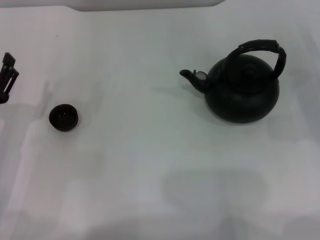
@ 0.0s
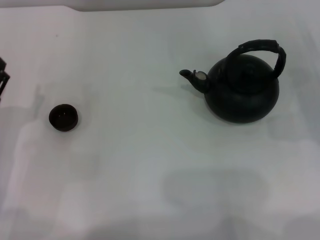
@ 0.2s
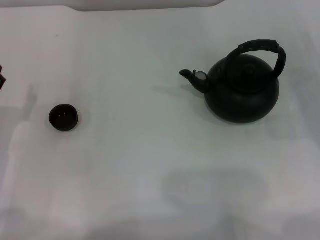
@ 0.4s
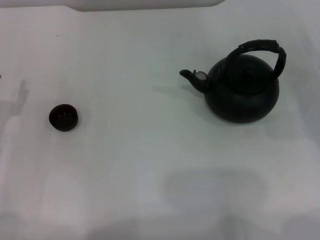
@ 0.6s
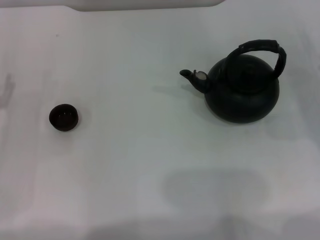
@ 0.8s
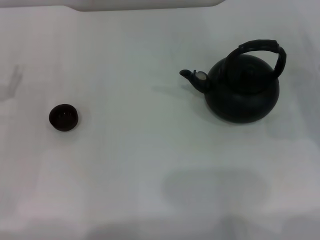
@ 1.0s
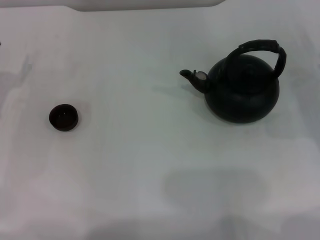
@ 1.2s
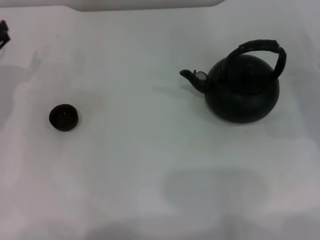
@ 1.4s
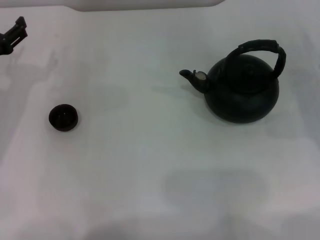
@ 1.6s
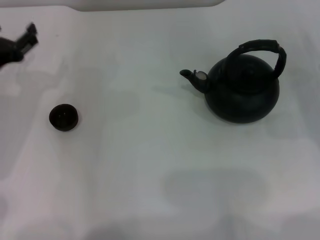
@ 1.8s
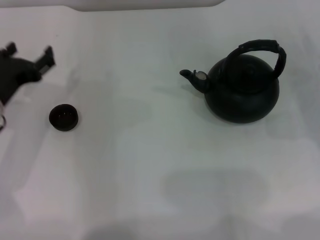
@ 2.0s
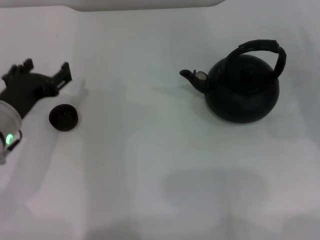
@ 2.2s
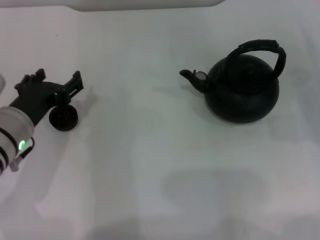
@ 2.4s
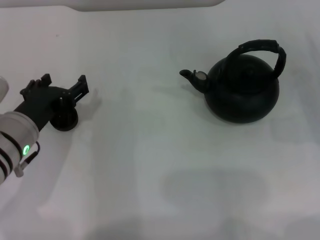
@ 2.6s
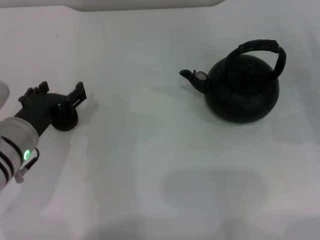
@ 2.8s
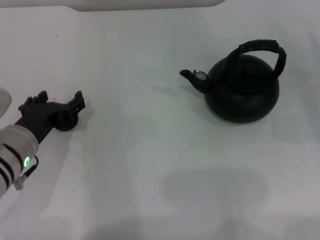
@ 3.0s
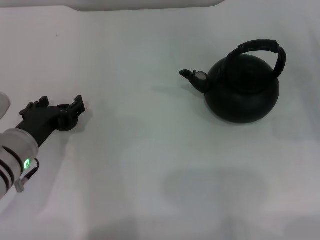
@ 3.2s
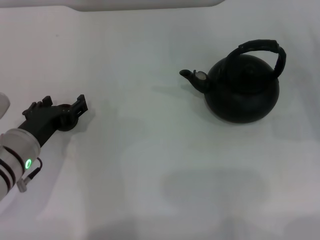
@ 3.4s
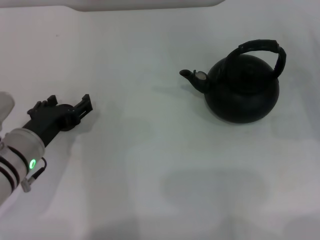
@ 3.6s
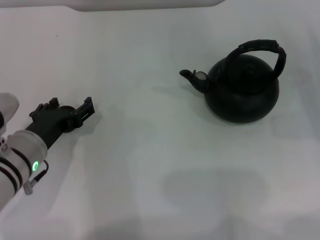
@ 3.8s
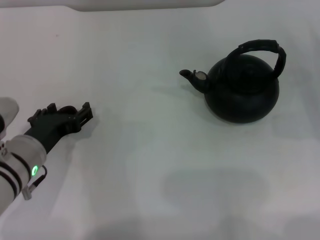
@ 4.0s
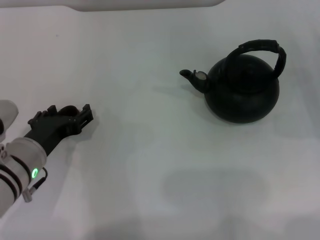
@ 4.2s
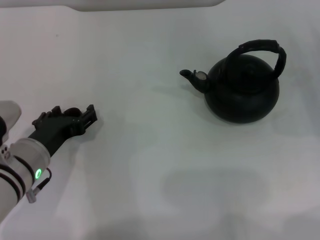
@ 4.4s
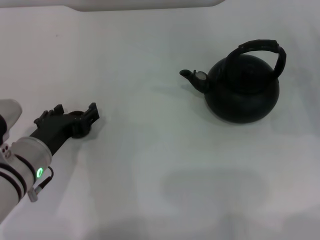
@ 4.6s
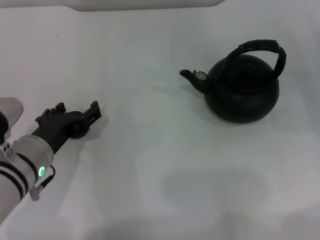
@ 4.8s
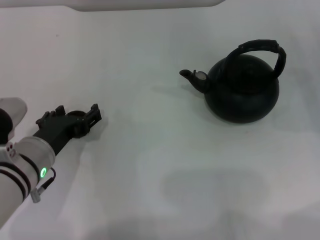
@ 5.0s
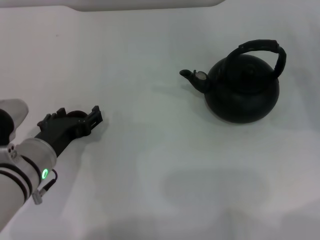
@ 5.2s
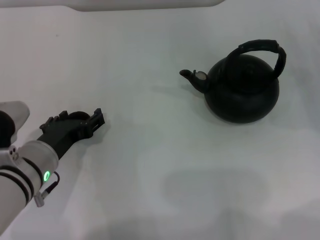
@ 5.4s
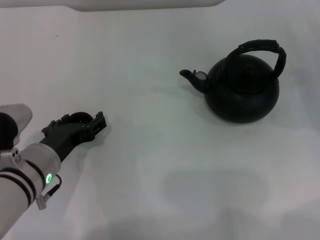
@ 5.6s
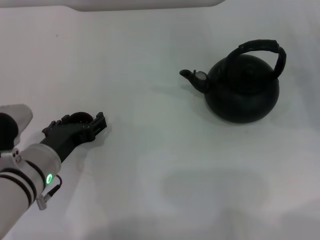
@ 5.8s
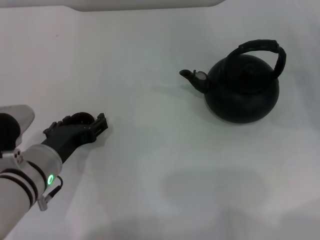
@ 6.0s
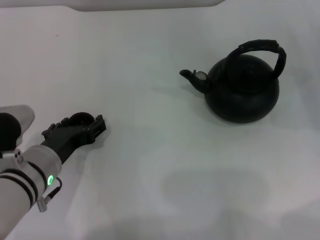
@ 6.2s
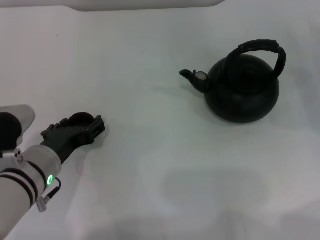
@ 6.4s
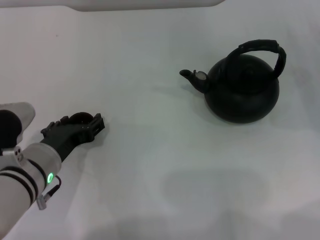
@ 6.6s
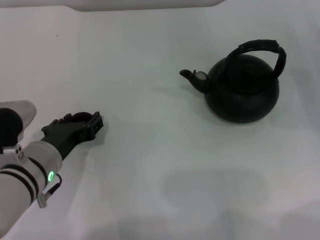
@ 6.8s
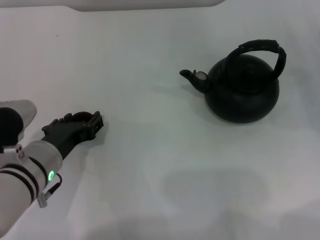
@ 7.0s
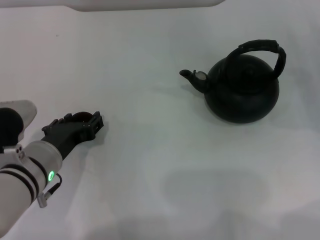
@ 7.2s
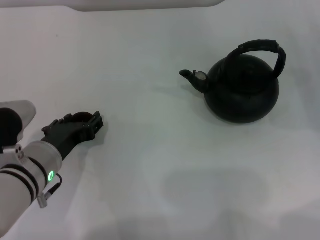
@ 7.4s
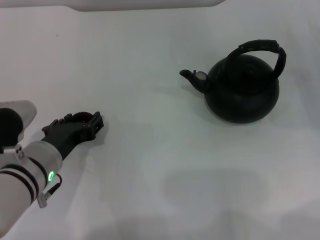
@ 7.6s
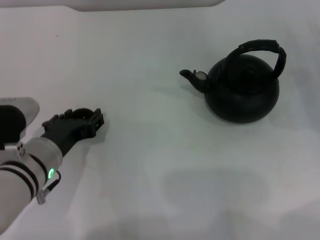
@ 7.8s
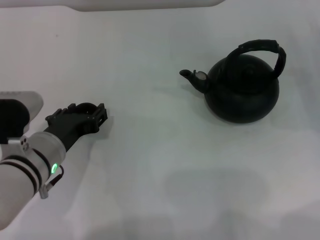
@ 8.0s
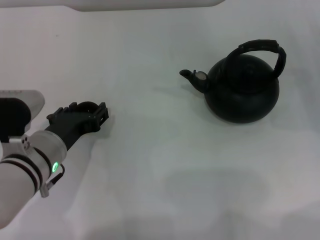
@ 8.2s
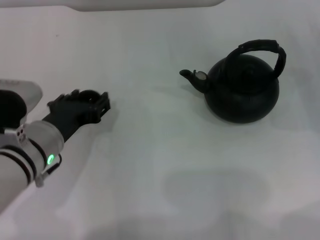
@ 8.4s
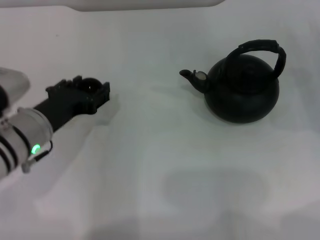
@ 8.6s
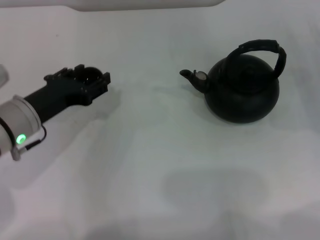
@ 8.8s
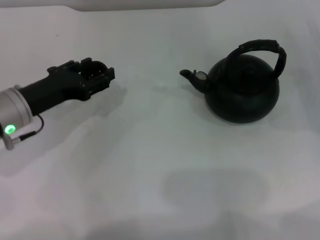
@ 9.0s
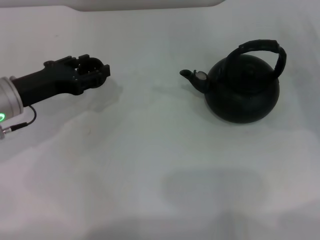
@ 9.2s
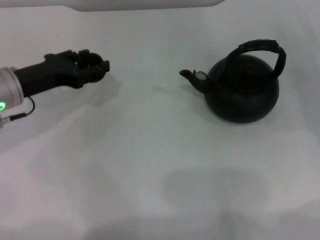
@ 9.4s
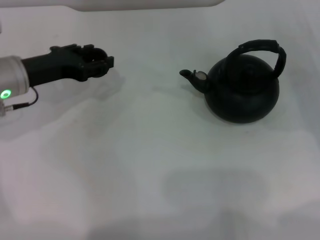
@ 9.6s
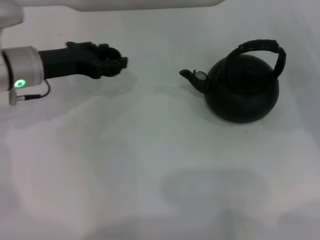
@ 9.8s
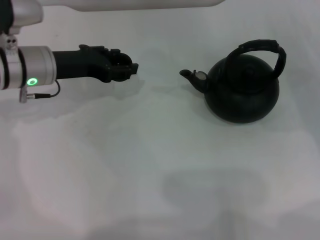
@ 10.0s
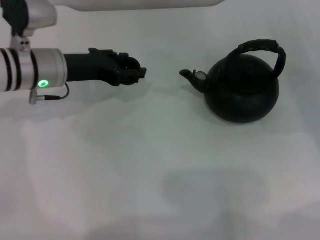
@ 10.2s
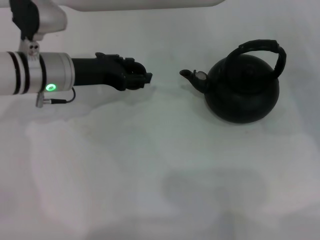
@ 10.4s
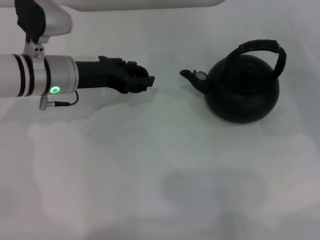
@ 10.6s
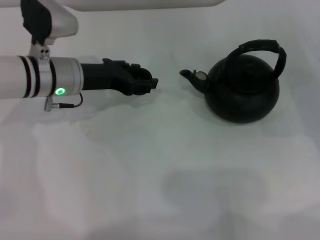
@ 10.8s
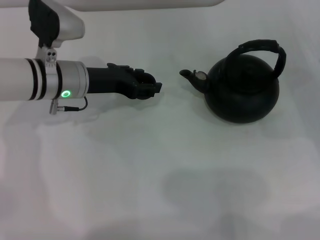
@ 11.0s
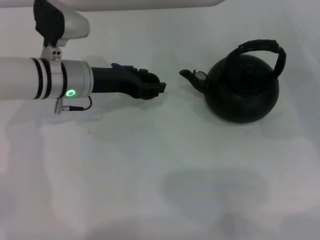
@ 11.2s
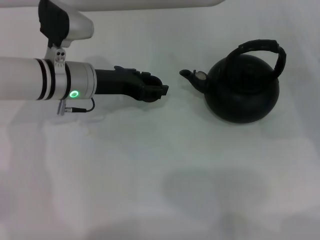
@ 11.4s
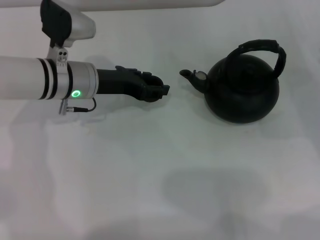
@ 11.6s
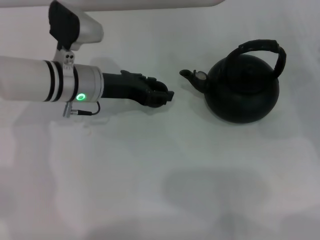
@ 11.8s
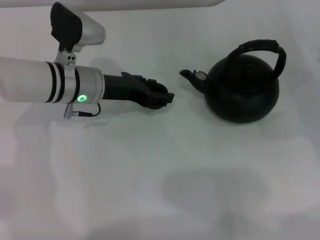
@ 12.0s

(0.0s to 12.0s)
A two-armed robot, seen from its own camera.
Task of the whole recording: Grasp the handle of the teapot with one hand and pour tea into the teacup.
Step, 0.0s - 8.8s: Pick up the teacup with the left gripper.
0.0s - 1.6s: The left gripper is displaced forward and upward by some 10 cm.
1.6s - 3.0s: The left gripper shifts about 10 cm to the right and backward.
3.0s - 6.0s: There are only small adjustments of the grippers.
6.0s - 7.6s: The left gripper closes up.
7.6s - 9.0s: The left gripper moves forward and to the left, some 10 cm.
9.0s - 10.4s: The left gripper is displaced forward and to the right by some 10 cm.
10.4s - 12.0s: The grippers make only small movements.

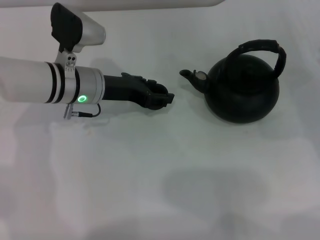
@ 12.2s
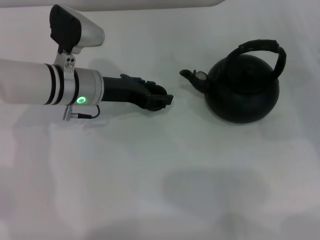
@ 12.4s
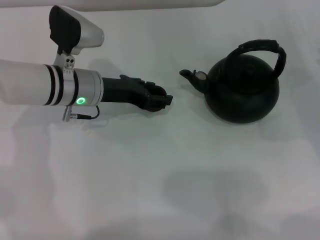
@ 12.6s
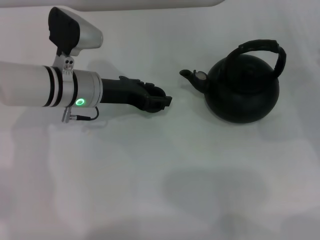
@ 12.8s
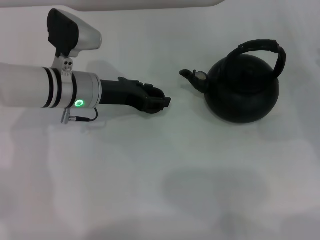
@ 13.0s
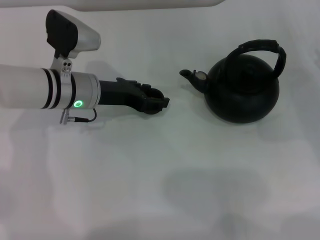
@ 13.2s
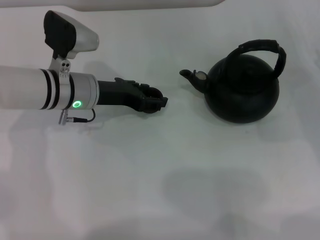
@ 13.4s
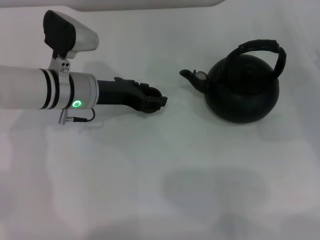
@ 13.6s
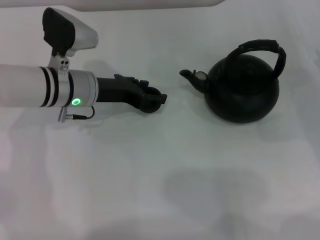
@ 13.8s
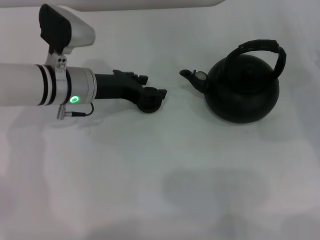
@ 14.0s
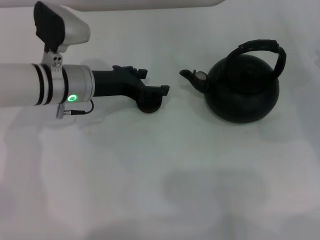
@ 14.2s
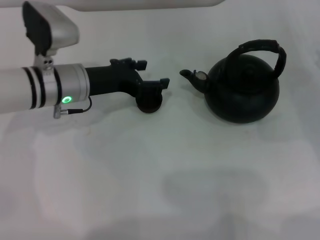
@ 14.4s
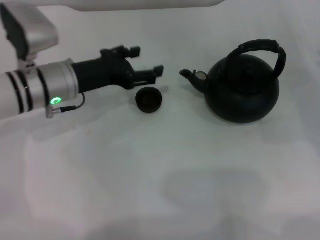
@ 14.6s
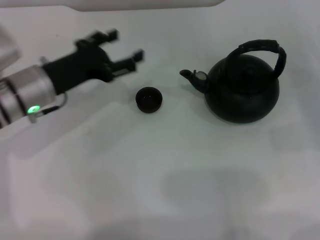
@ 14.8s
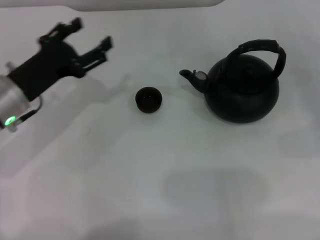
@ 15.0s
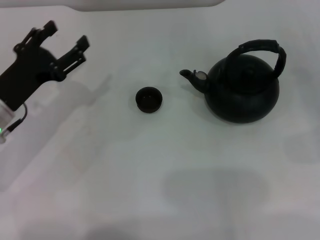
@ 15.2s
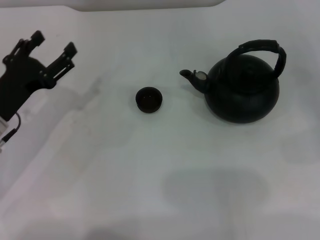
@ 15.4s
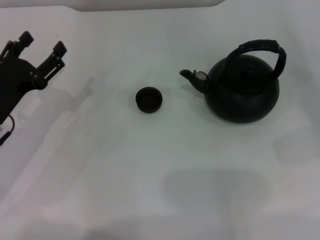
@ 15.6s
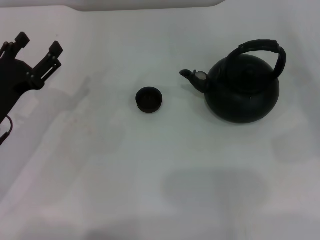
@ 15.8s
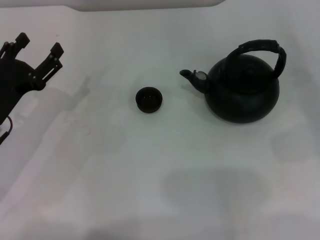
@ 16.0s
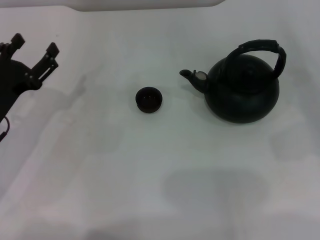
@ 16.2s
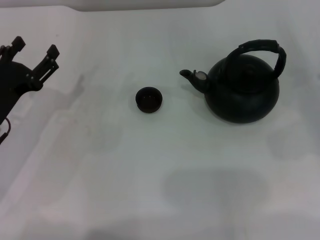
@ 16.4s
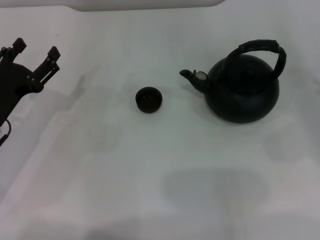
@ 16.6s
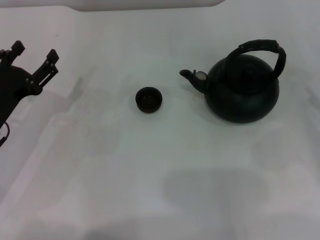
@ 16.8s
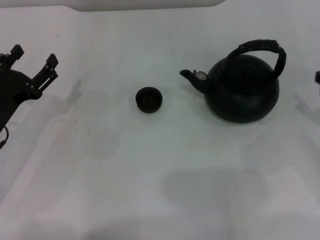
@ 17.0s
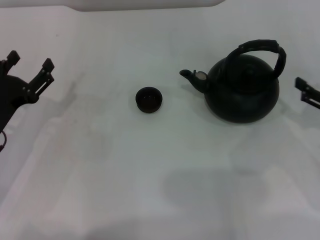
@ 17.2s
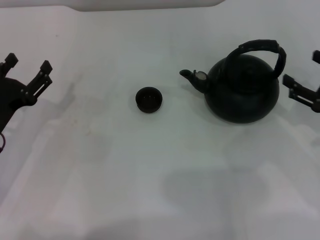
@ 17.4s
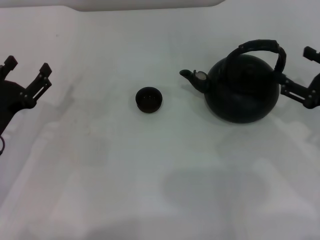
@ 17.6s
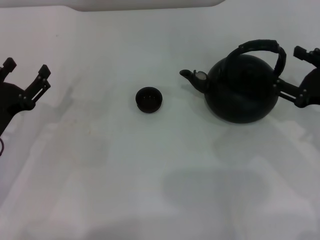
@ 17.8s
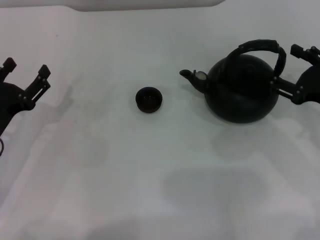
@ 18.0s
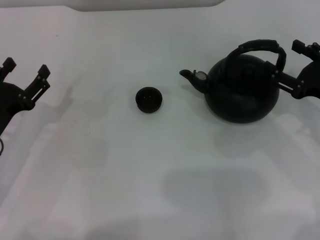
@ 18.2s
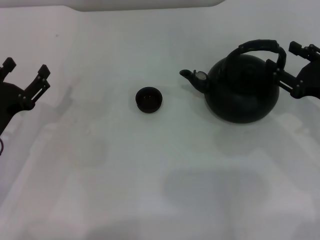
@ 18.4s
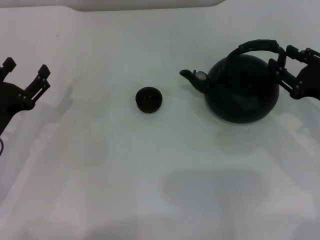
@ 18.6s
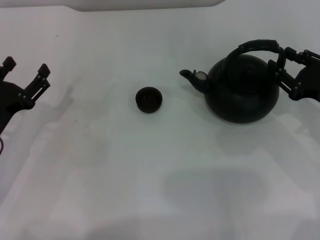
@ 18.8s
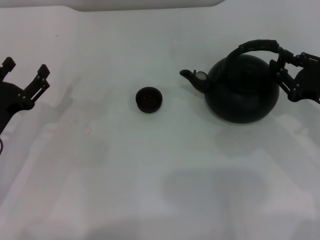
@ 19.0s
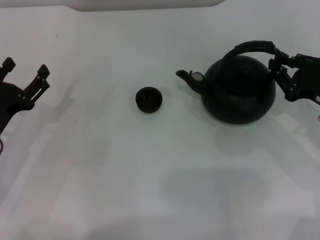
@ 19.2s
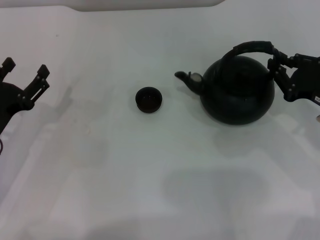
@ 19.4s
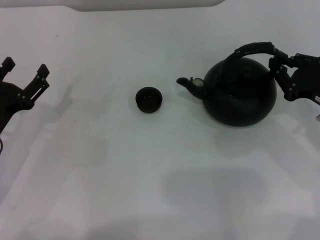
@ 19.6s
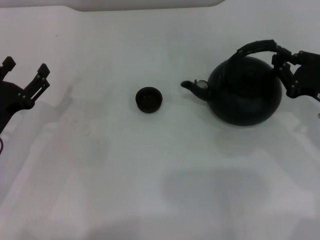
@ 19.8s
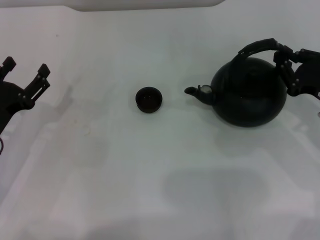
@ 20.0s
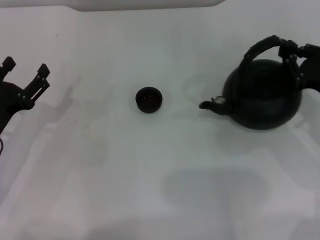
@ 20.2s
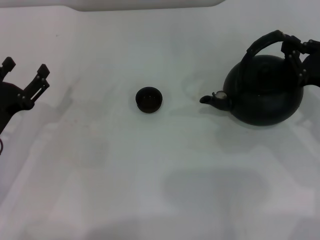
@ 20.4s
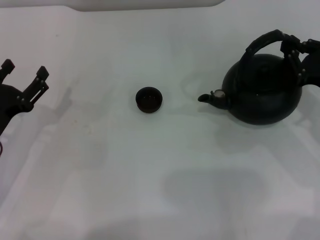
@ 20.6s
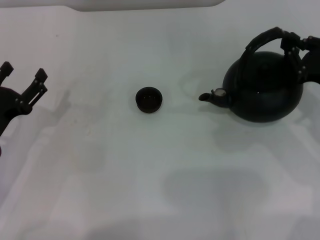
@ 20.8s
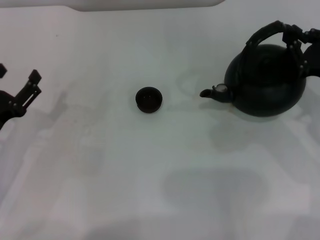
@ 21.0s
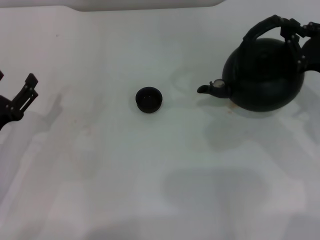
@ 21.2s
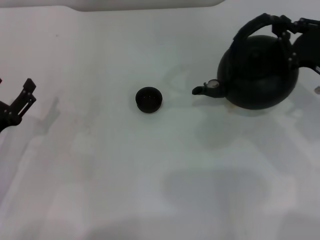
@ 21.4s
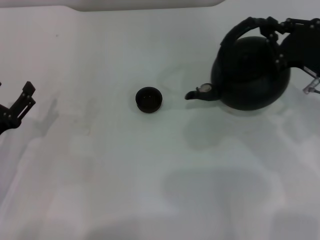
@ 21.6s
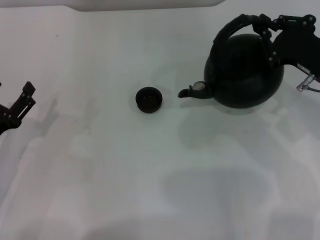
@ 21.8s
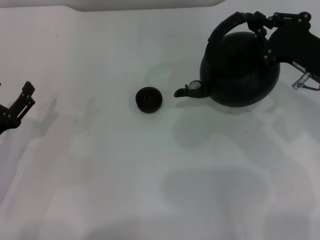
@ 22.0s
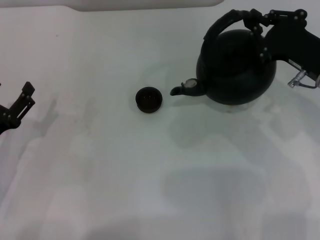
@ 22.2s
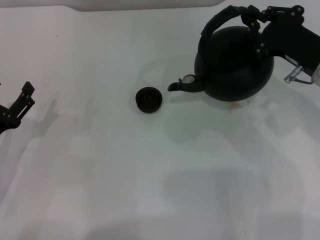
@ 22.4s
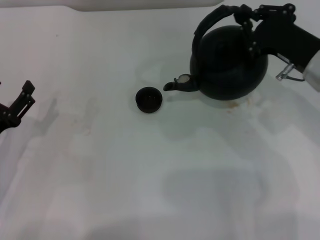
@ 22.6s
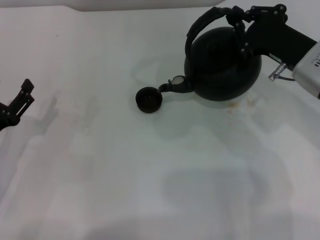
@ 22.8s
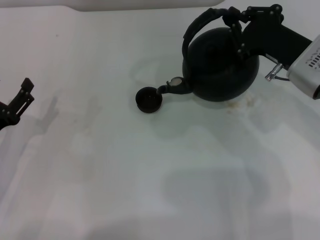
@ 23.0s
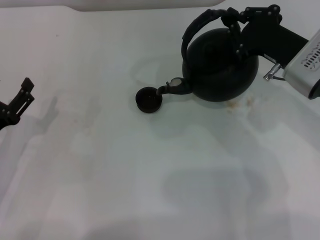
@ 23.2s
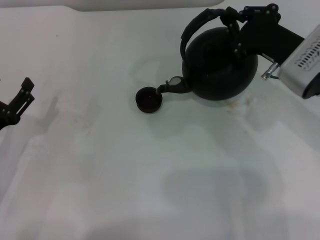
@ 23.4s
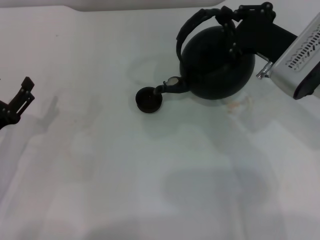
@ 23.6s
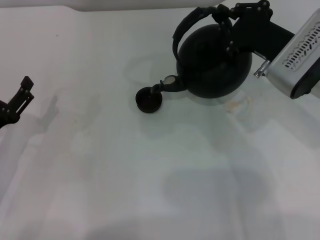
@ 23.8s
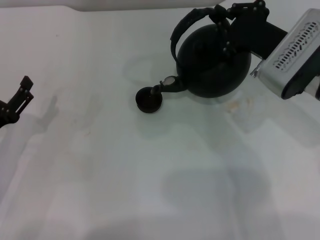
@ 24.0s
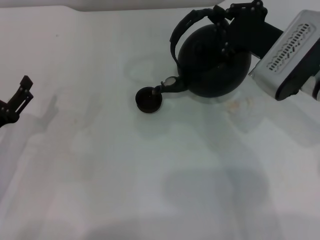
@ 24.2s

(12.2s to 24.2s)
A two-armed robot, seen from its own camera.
Task of the whole recording: Grasp the handle of the teapot with one hand and pour tea into the teacup.
Step, 14.2s - 22.2s: Pick up the teapot with the right gripper.
12.2s - 13.8s: The two grippers keep their place.
13.8s - 15.2s: The right gripper ends up about 5 cm from where it was. The left gripper travels to the left and backward by approximately 15 cm, and opens up.
15.2s - 16.6s: The grippers move only a little.
16.6s - 18.2s: The right gripper travels to the left by some 10 cm.
18.2s - 19.8s: The right gripper closes.
19.8s - 21.2s: There are only small adjustments of the grippers.
21.2s - 22.6s: The right gripper is displaced to the left by some 5 cm.
22.6s - 24.2s: The grippers stay close to where they were, moving slightly.
